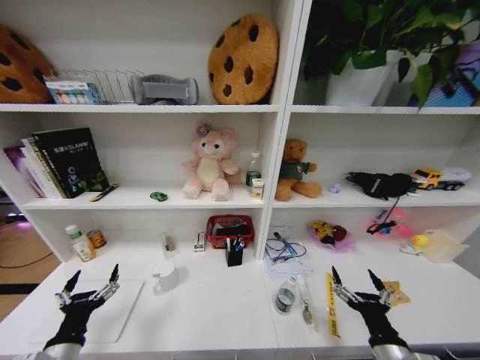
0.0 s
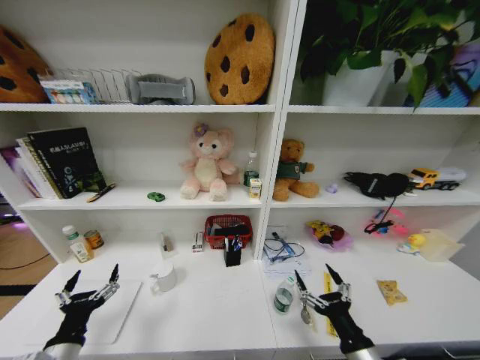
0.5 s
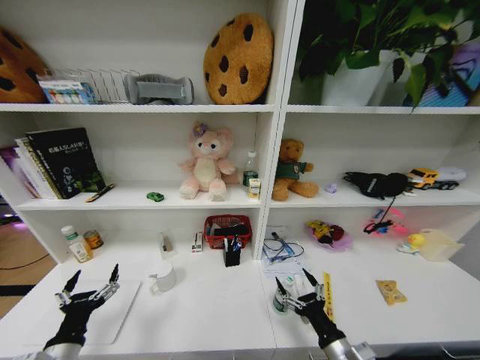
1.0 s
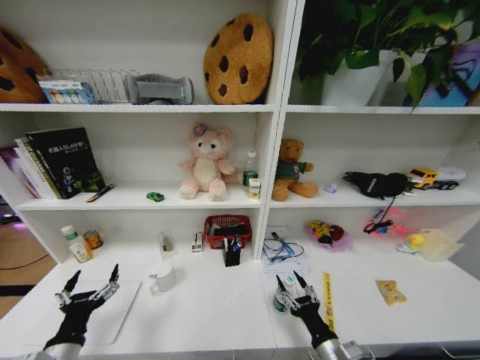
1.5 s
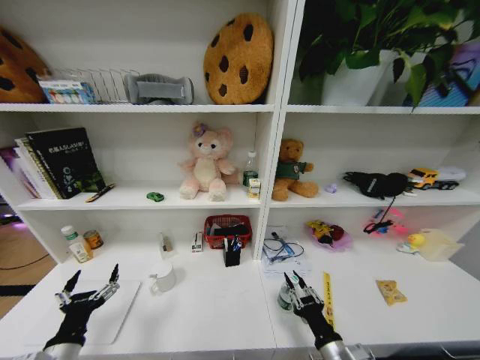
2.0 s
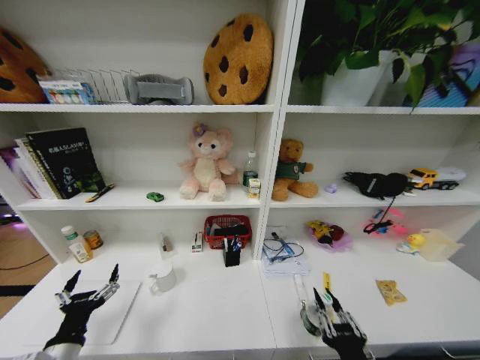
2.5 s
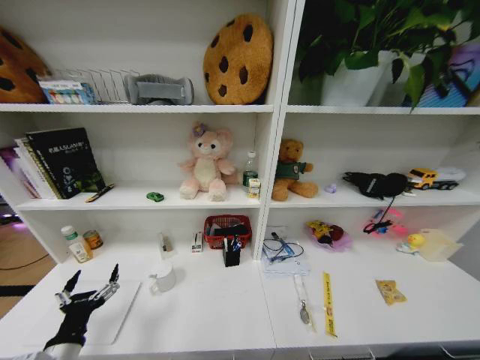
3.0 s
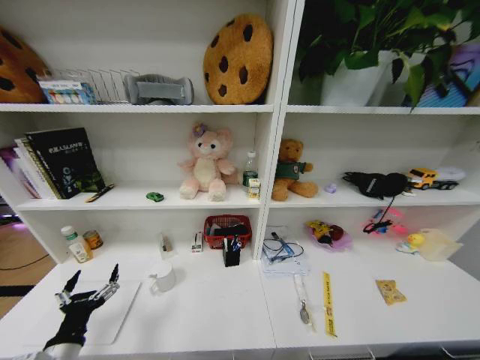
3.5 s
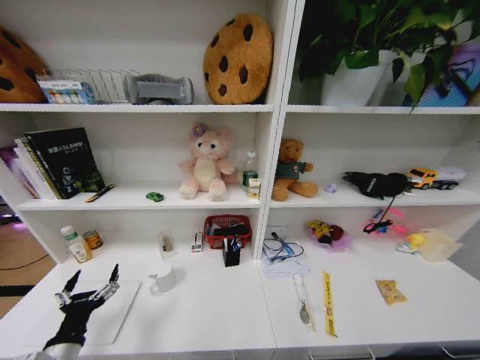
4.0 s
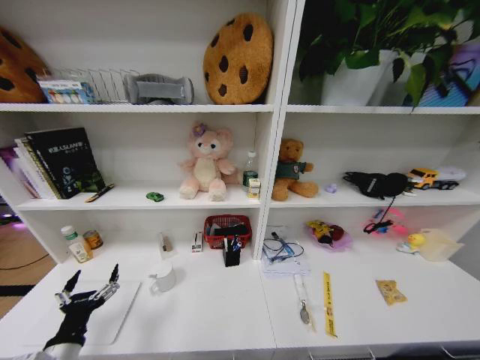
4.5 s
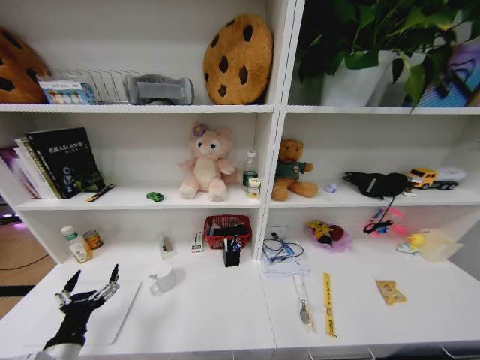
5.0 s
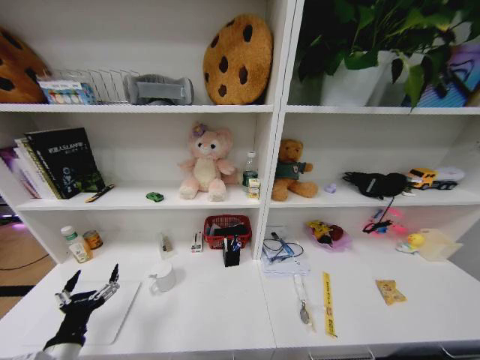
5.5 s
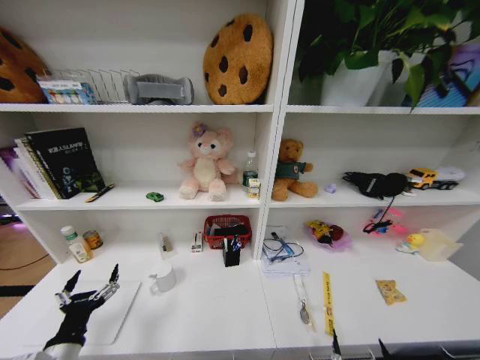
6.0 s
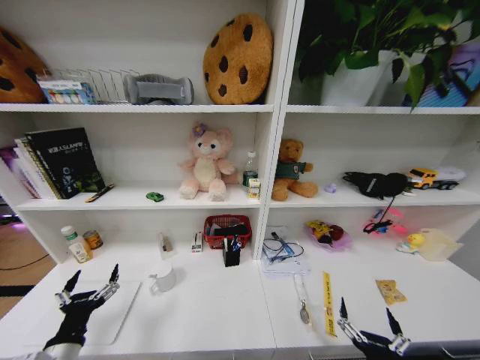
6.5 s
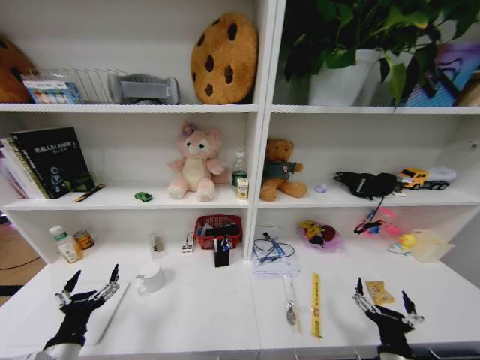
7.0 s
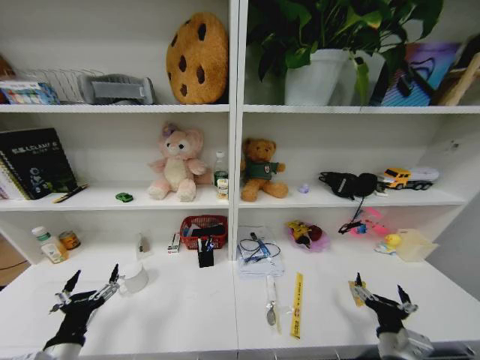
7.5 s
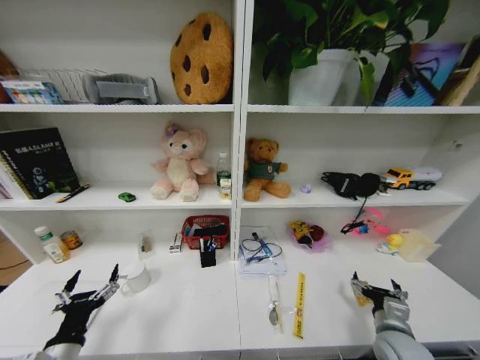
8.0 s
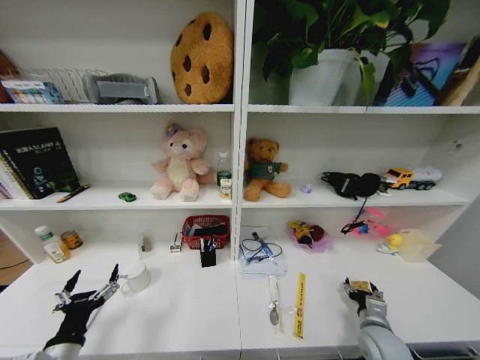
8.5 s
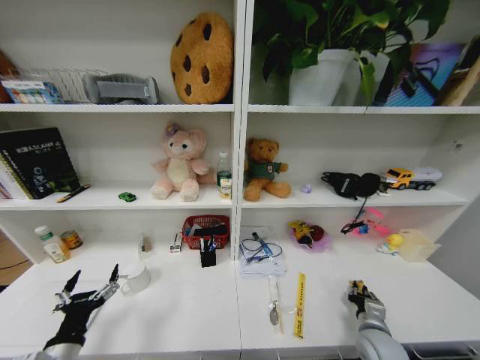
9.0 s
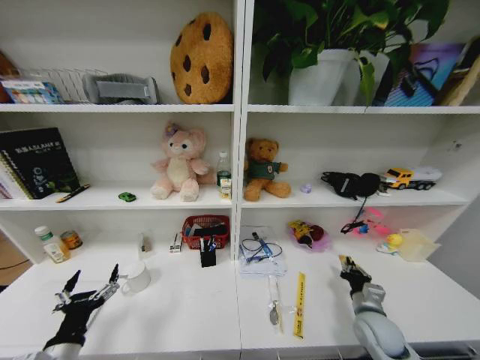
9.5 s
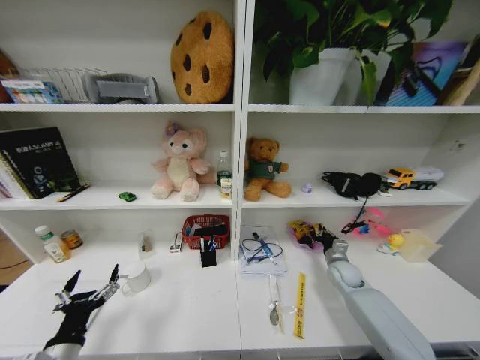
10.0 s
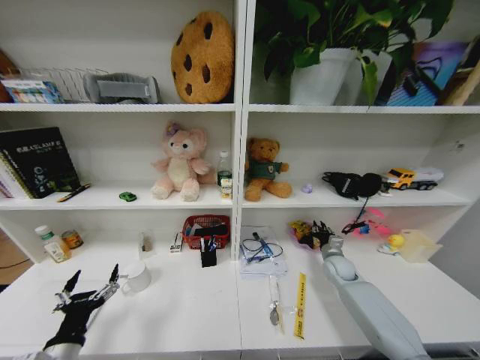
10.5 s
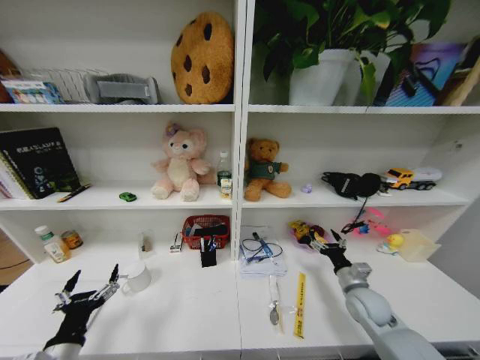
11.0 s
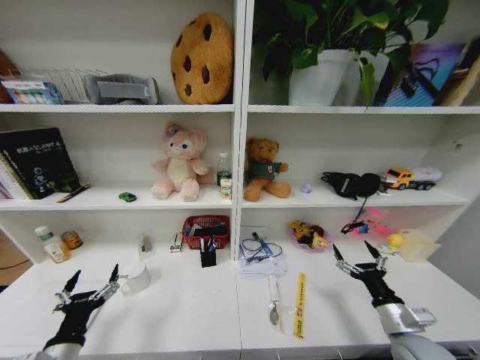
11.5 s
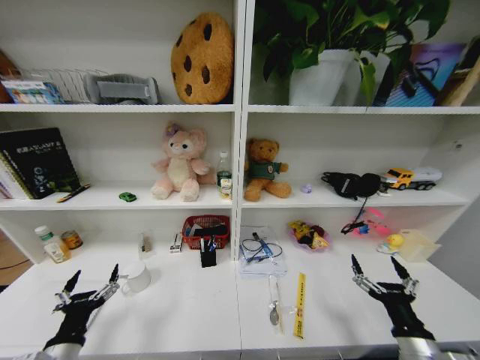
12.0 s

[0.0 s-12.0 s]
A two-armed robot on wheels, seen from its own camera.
Task of the whole recording: Organize the objects on the table.
0.0 to 2.0 s: The right gripper moves to the left, some 5 cm, and closes.
2.0 to 4.0 s: The right gripper goes about 30 cm downward and backward.
6.0 to 8.0 s: The right gripper heads forward and to the right, covering about 25 cm.
8.0 to 10.0 s: The right gripper goes some 20 cm forward, and closes.
10.0 to 12.0 s: The right gripper travels backward by approximately 25 cm, and opens.

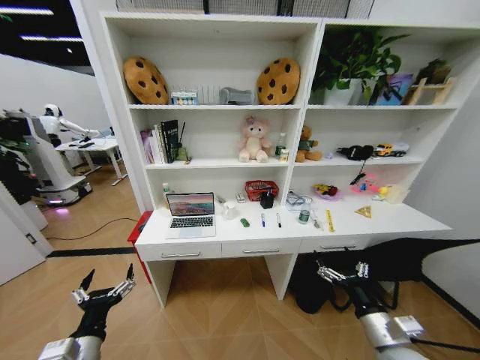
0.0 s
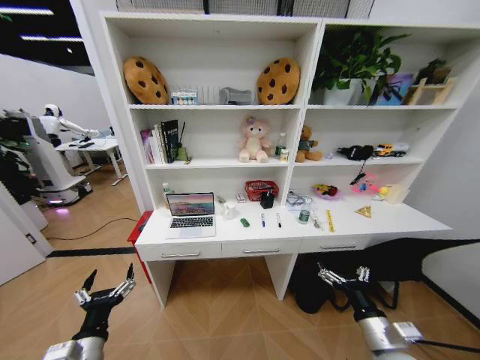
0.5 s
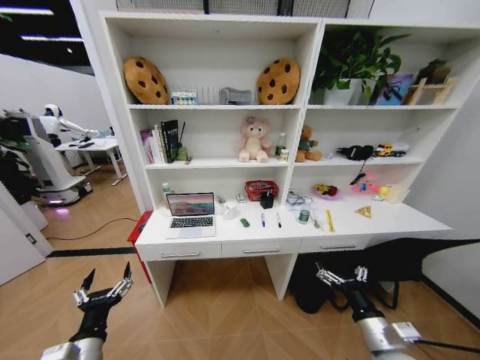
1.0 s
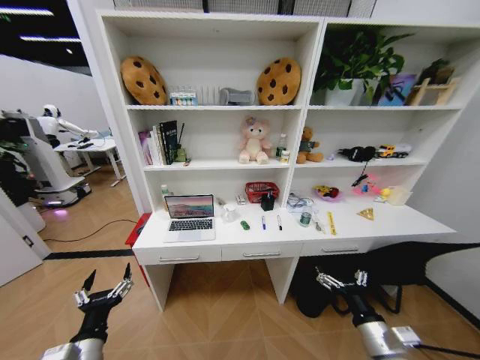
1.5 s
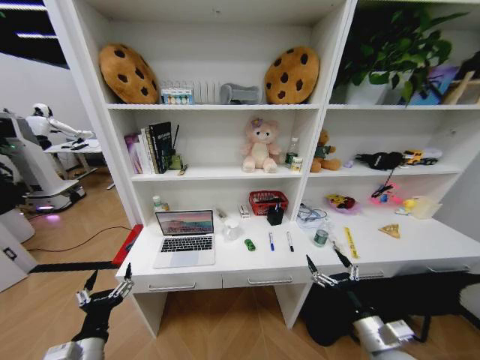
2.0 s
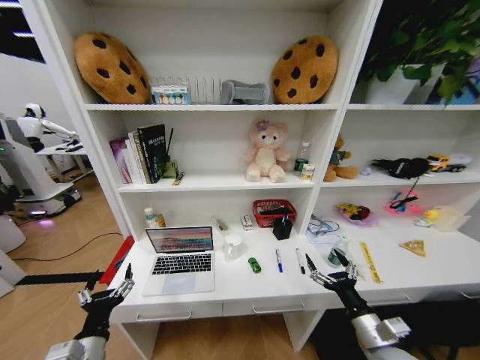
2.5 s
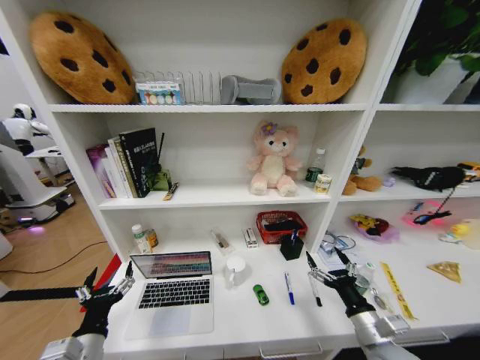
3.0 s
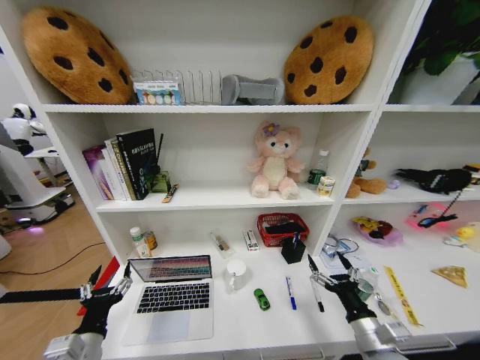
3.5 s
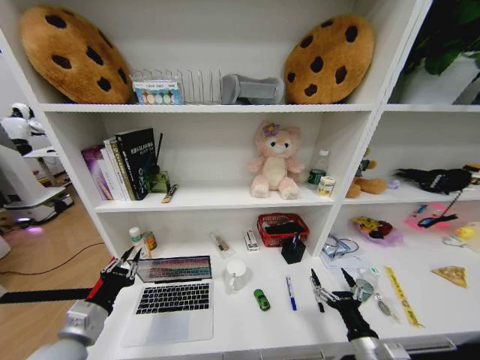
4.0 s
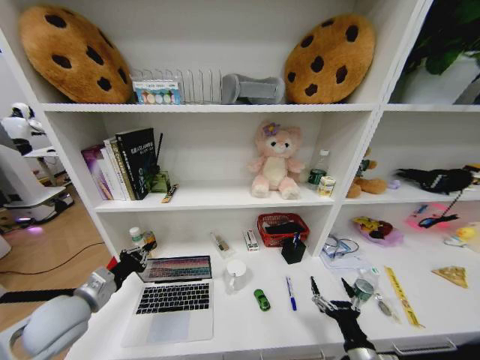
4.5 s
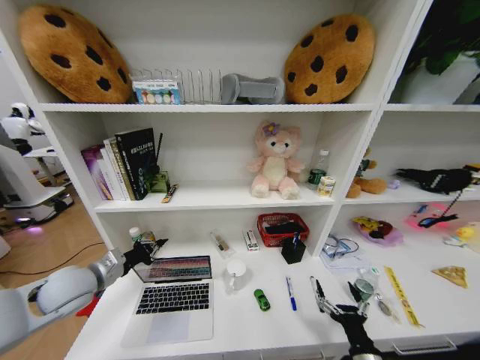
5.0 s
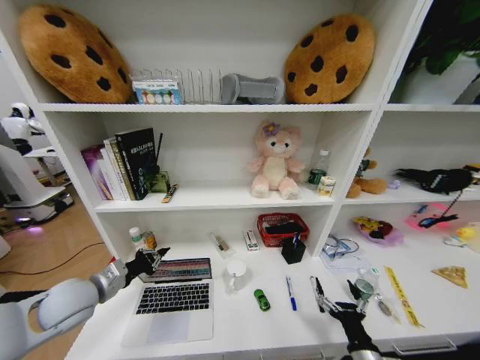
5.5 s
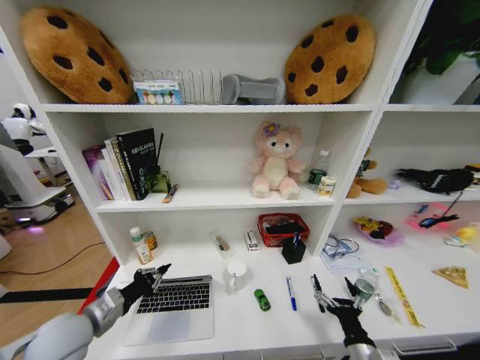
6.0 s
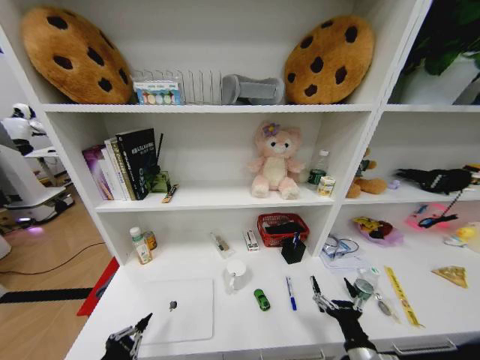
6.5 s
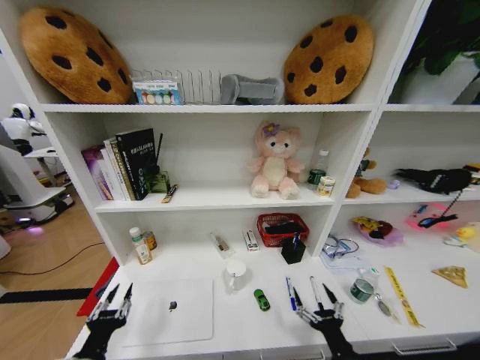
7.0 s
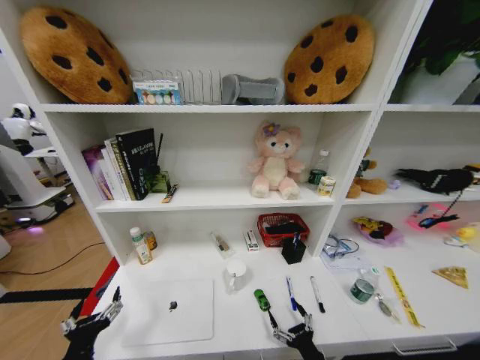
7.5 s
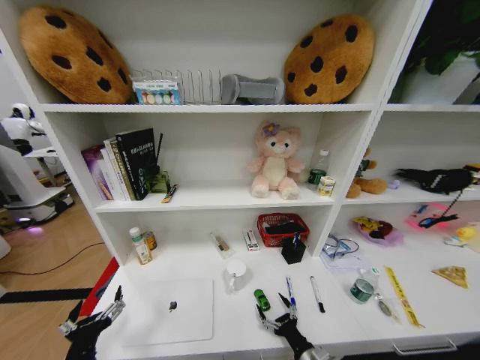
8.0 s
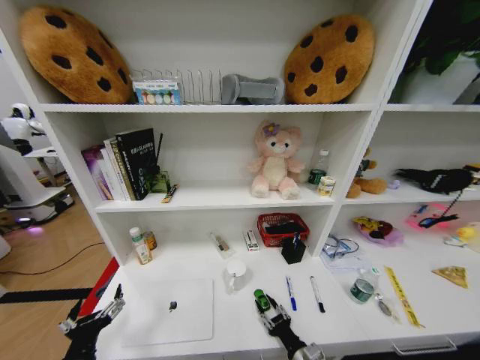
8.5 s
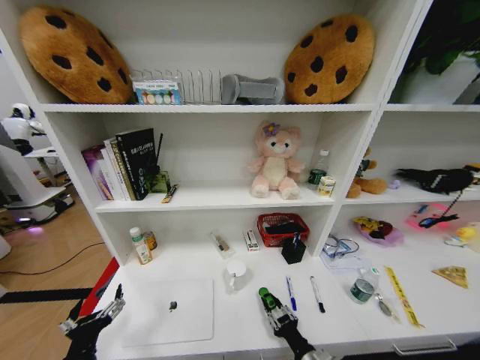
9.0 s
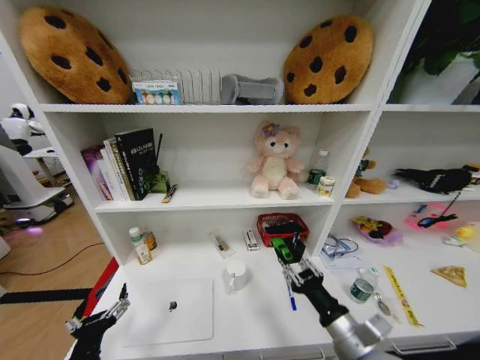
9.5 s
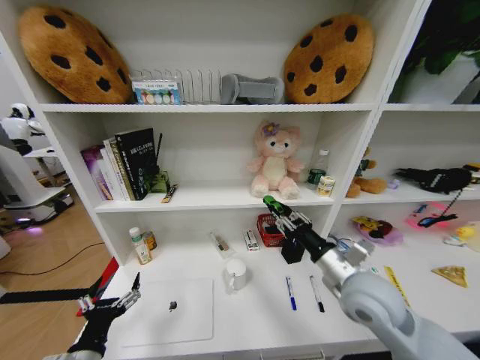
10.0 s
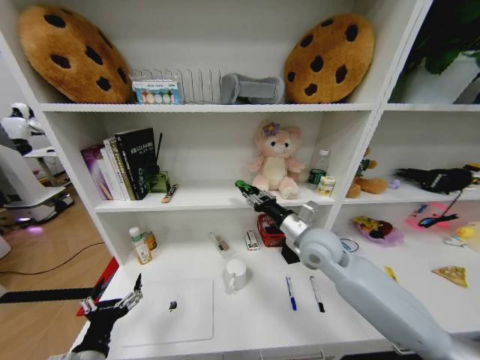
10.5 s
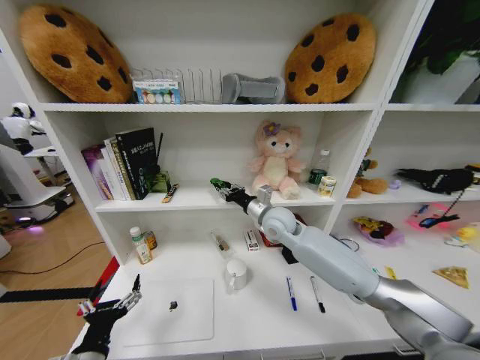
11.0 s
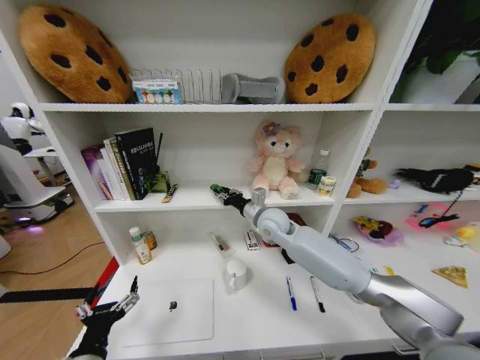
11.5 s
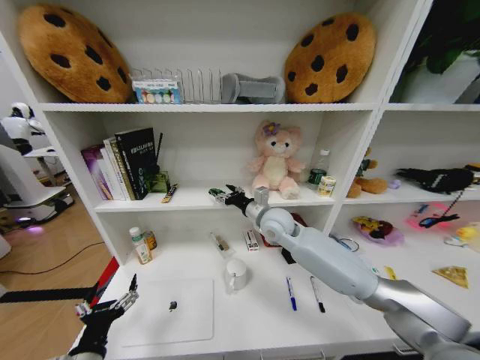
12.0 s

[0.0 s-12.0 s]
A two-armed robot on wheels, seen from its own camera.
Task of the whole recording: Organize the objects on the table.
2.0 to 4.0 s: The right gripper shifts by approximately 5 cm. The left gripper shifts roughly 5 cm forward, and closes up.
6.0 to 8.0 s: The left gripper goes approximately 15 cm backward, and opens its fingers. The right gripper shifts roughly 10 cm downward and to the left.
8.0 to 10.0 s: The right gripper shifts some 30 cm upward and forward, and closes up.
10.0 to 12.0 s: The right gripper shifts about 25 cm forward and to the left, and opens its fingers.

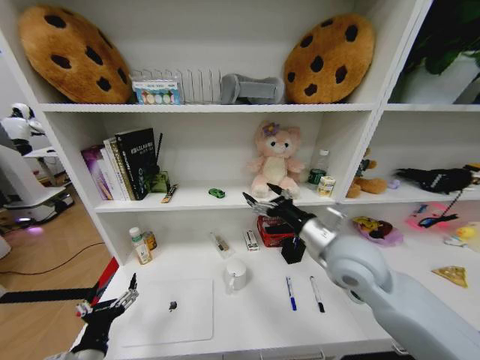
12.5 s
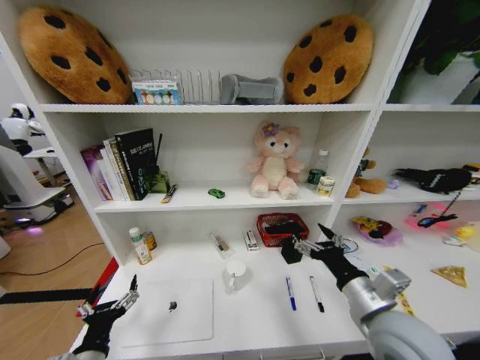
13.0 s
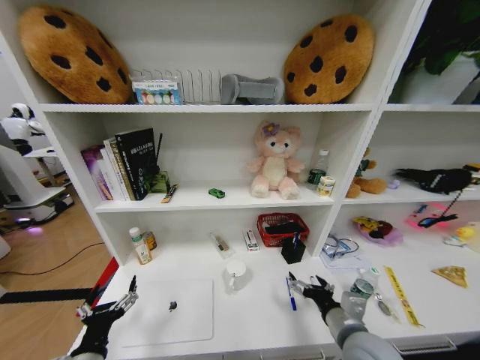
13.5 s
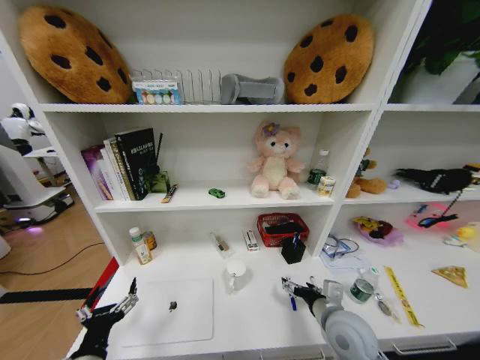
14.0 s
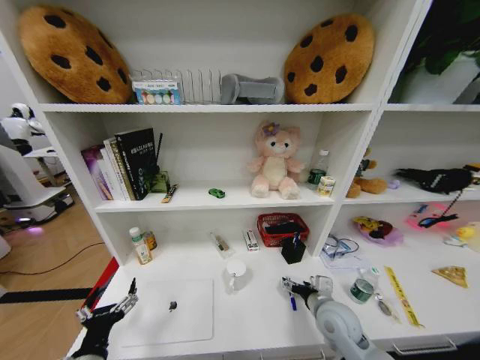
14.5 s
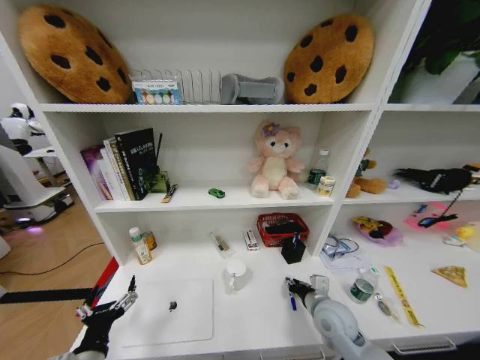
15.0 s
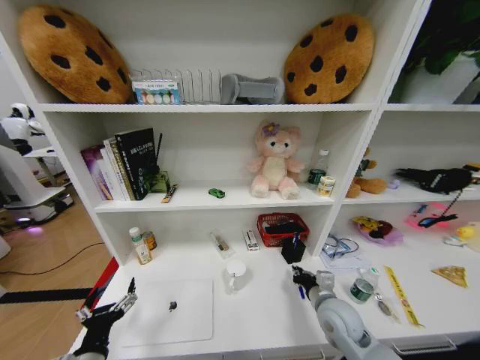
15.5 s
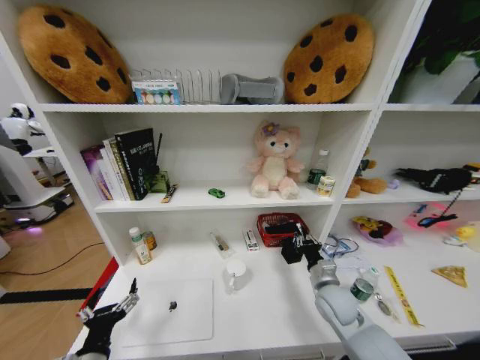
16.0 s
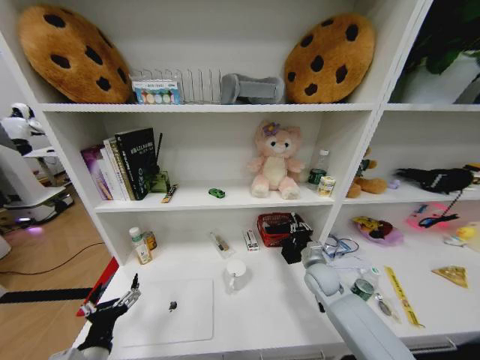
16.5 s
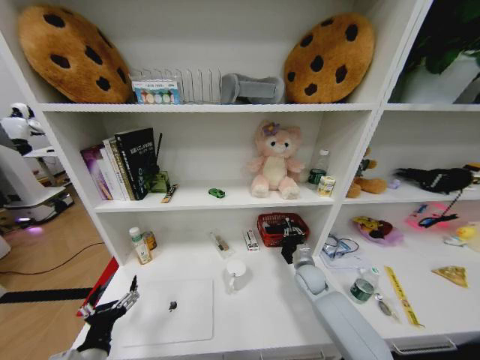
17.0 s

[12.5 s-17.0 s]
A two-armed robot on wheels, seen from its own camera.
Task of the whole recording: Organize the objects on the table.
12.5 to 14.5 s: The right gripper heads downward, covering roughly 20 cm.
14.5 to 17.0 s: The right gripper travels forward by approximately 15 cm, and closes its fingers.
